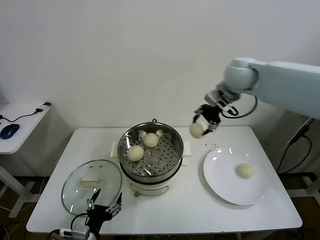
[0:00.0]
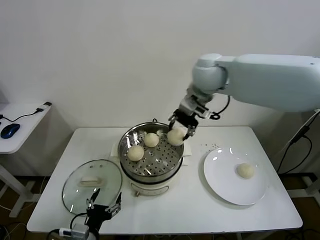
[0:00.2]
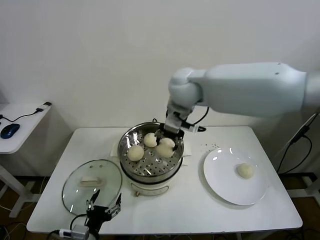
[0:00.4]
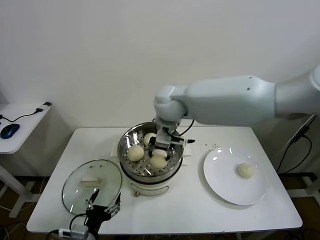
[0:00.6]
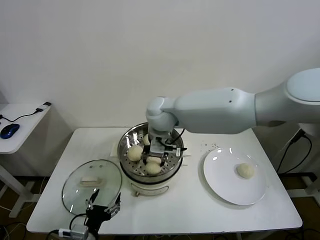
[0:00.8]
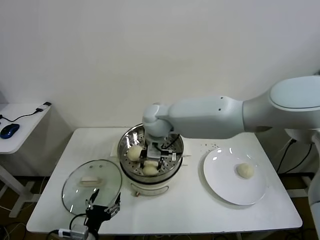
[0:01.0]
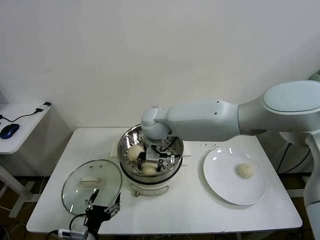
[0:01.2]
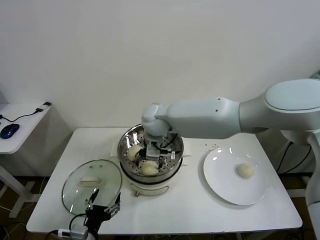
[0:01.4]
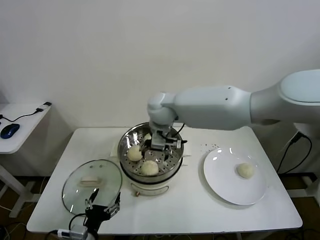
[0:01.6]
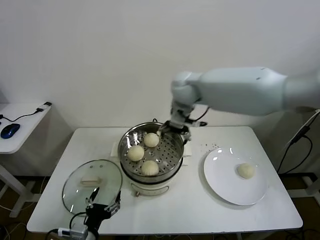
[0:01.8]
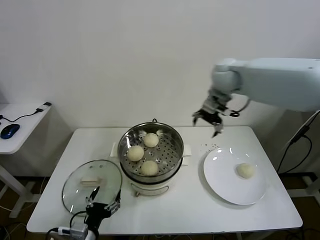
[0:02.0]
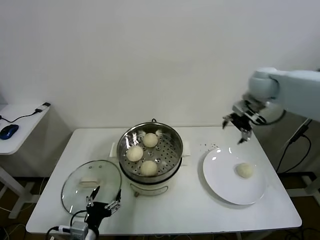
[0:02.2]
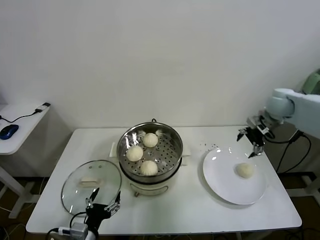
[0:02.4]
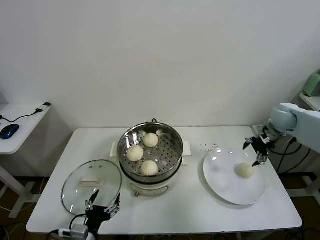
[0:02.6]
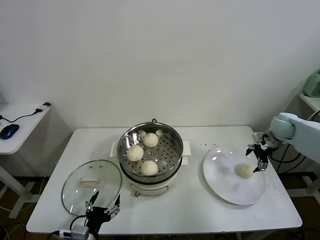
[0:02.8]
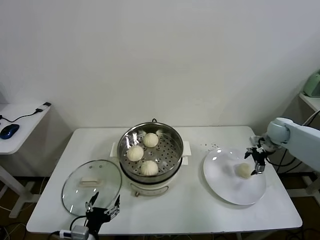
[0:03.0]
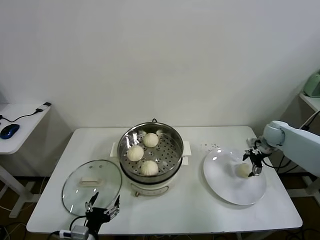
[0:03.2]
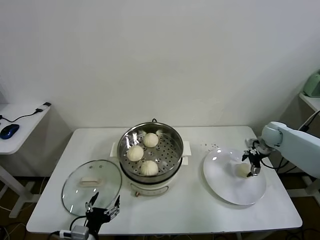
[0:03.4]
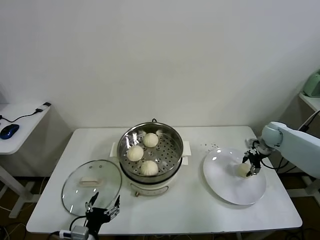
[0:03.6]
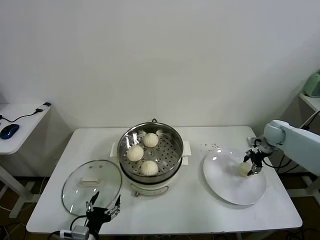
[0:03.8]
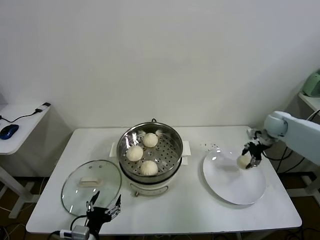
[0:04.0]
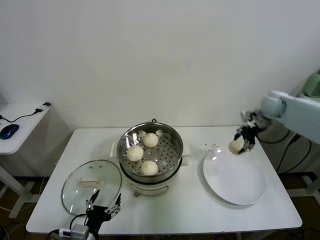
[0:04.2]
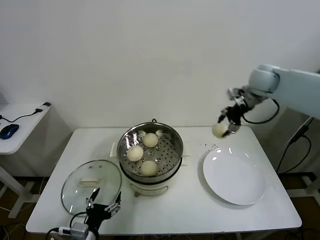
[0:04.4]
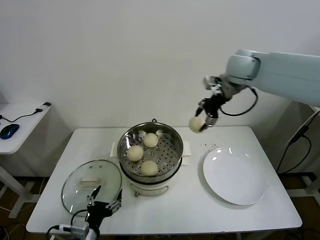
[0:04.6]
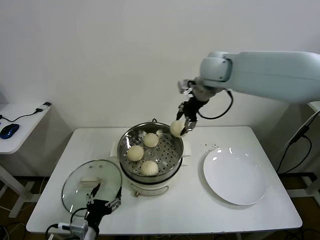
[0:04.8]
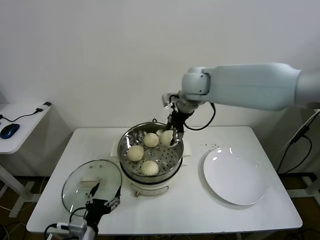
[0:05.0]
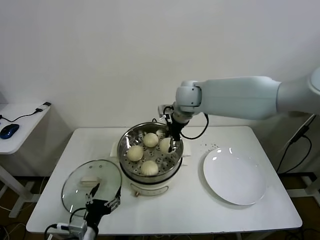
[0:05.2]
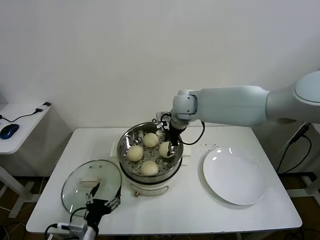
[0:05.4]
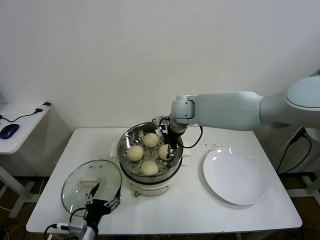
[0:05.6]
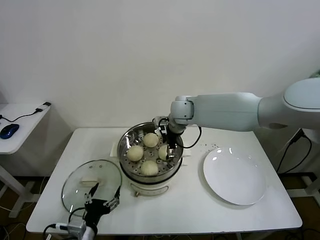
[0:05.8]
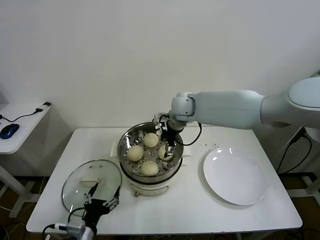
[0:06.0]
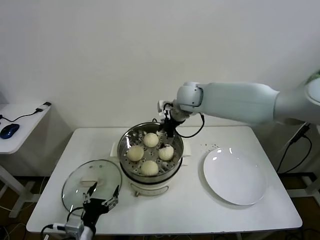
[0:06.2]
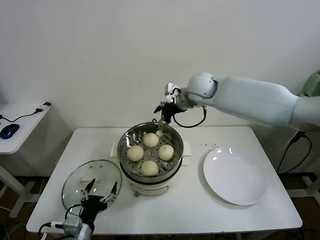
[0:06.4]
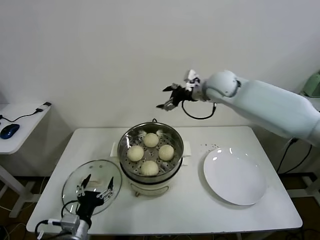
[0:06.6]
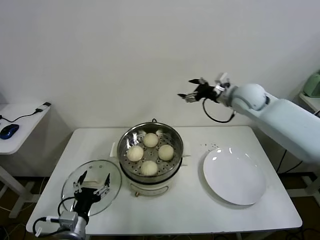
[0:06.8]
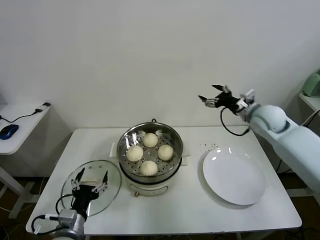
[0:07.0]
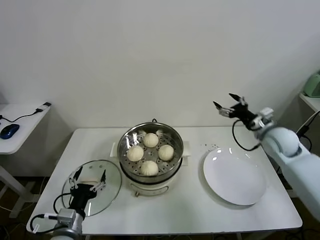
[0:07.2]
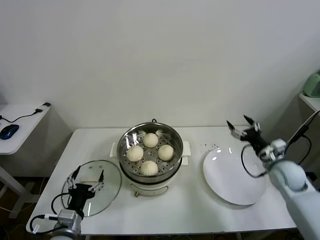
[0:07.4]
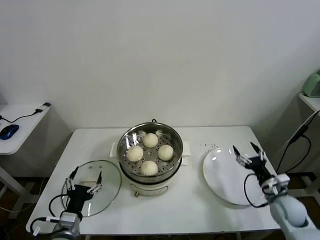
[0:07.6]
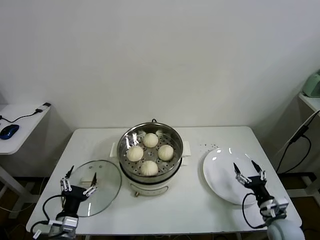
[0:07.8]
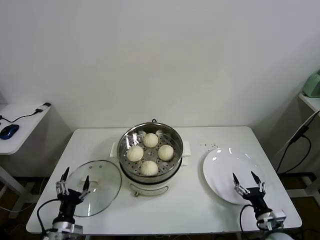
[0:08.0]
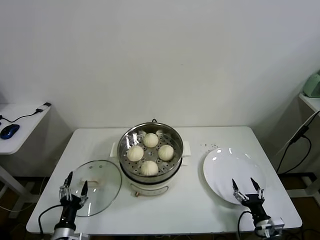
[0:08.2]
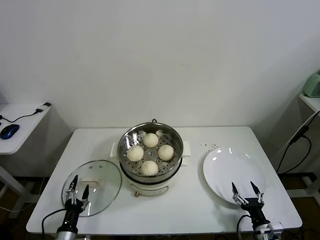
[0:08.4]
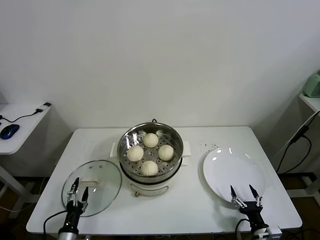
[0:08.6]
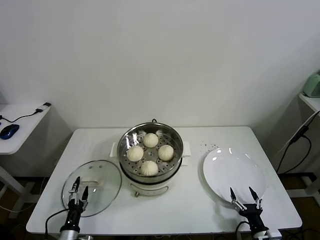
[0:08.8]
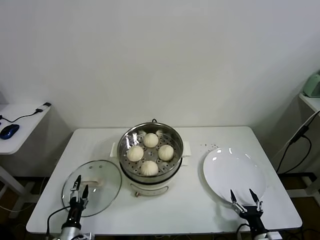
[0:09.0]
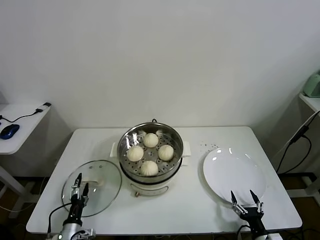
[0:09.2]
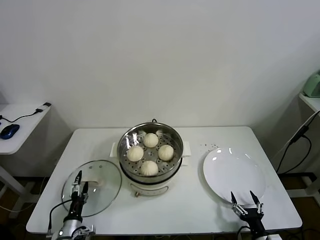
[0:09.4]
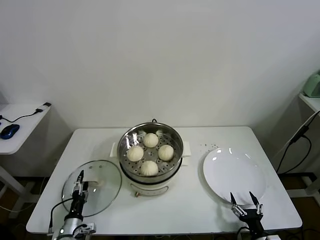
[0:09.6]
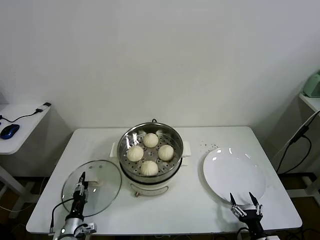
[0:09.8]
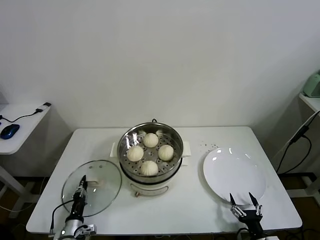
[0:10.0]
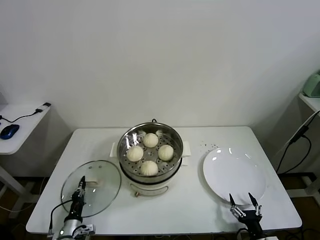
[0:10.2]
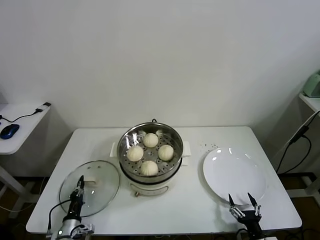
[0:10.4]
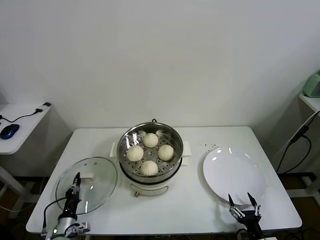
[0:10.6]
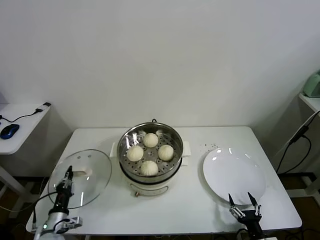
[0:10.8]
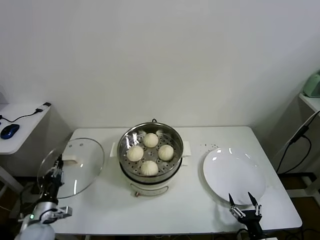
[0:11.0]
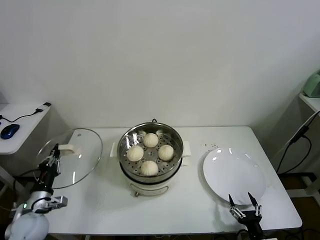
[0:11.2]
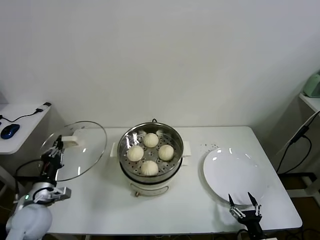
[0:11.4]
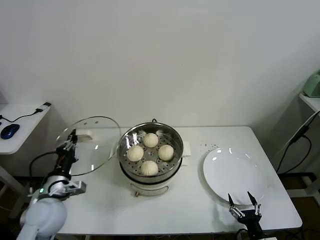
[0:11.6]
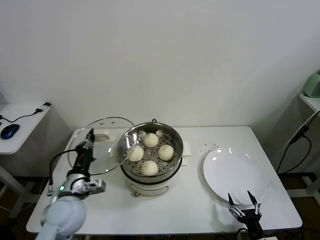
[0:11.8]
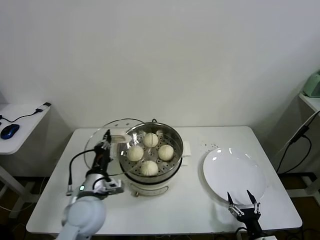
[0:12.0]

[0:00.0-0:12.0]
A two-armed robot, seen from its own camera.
Task of the whole recording: take steamed baozi put them in steamer.
Step, 0:00.0 to 0:01.4: Place the baozi on the steamer with right gripper.
Step, 0:01.6 to 0:03.6: Grasp the baozi in the plate with right gripper.
Step, 0:03.8 to 0:05.8: Place the baozi on the steamer with right gripper.
Step, 0:06.0 to 0:10.2: Grasp the pot lid with left gripper.
0:00.0 to 0:01.6: The right gripper shifts roughly 25 cm to the left and downward, and opens its fingers.
0:01.6 to 0:03.0: The right gripper heads to the right, covering about 50 cm.
0:03.0 to 0:04.4: The right gripper is displaced upward and to the left by some 25 cm, and closes its fingers.
0:04.4 to 0:06.0: The right gripper is displaced to the left by about 25 cm, and opens its fingers.
0:06.0 to 0:07.6: The right gripper moves to the right, downward and backward, roughly 50 cm.
0:07.6 to 0:09.0: The left gripper travels downward by some 15 cm, while the right gripper travels backward and downward by roughly 20 cm.
0:09.0 to 0:10.4: The left gripper closes.
0:10.4 to 0:12.0: The left gripper shifts approximately 30 cm upward and to the right.

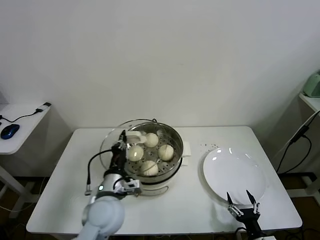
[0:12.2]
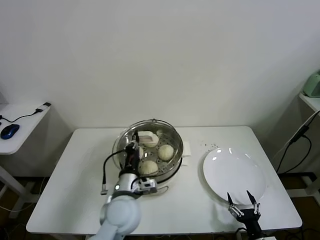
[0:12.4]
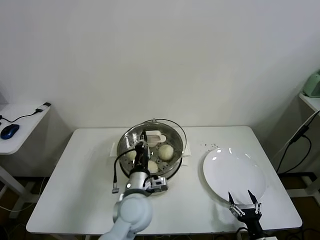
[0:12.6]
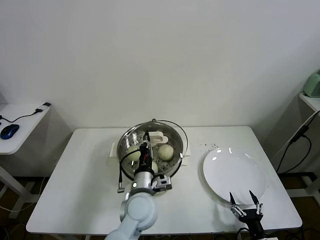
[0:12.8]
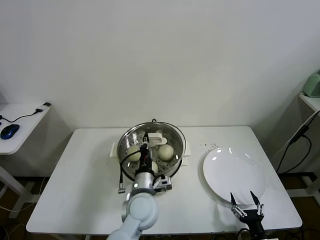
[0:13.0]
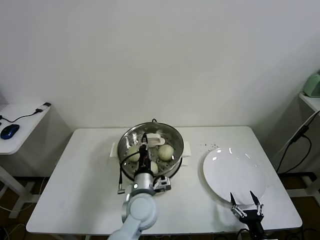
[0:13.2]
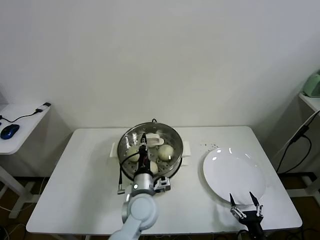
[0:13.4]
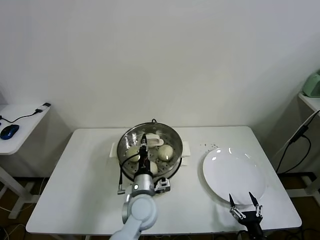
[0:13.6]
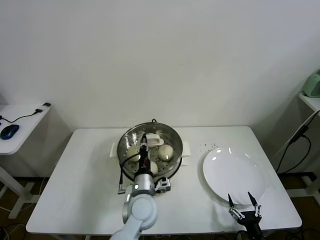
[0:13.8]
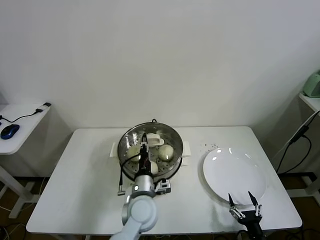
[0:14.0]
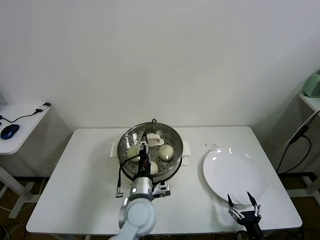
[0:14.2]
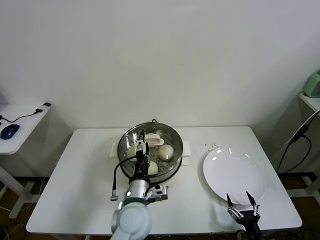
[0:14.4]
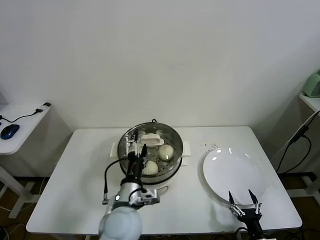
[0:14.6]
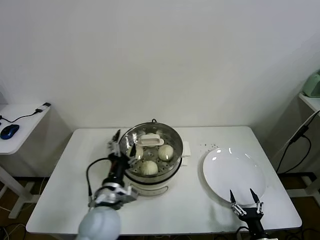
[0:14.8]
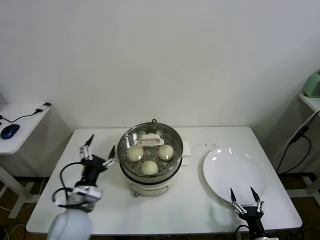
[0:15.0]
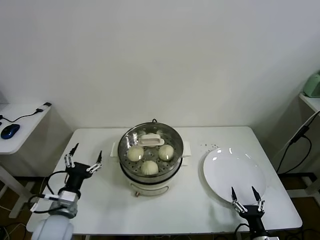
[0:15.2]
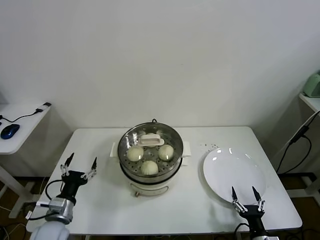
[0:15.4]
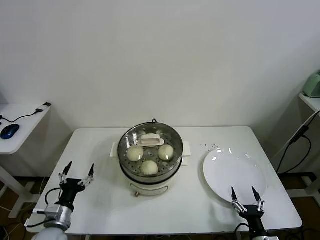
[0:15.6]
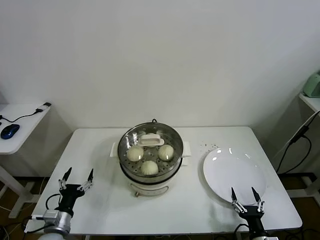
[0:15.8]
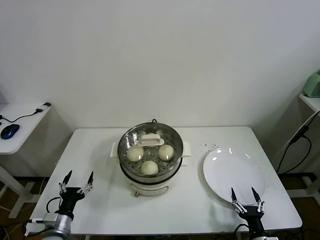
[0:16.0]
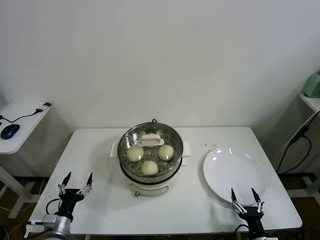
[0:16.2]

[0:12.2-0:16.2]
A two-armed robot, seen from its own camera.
Task of the whole recording: take steamed baozi put them in steamer.
Step, 0:12.2 to 0:14.2: Place the pot lid on the steamer with left gripper.
0:12.2 to 0:13.6: The left gripper goes some 10 cm to the right and downward.
0:13.6 to 0:14.8: The left gripper heads to the left, backward and upward, covering approximately 10 cm, and opens.
0:14.8 to 0:16.2: The left gripper travels to the left and downward by approximately 25 cm.

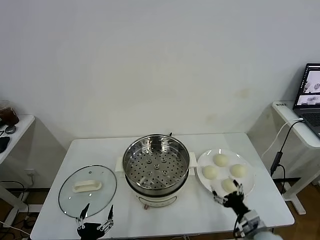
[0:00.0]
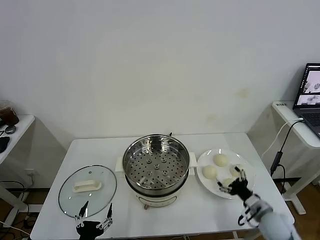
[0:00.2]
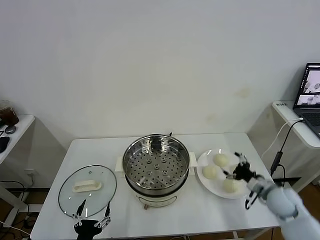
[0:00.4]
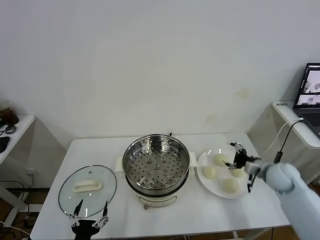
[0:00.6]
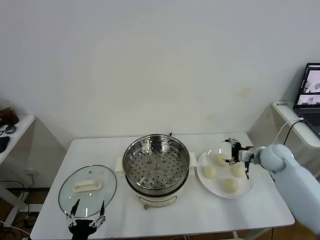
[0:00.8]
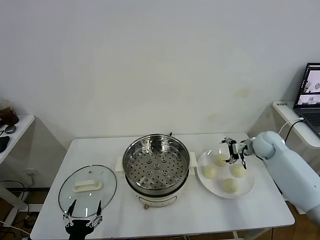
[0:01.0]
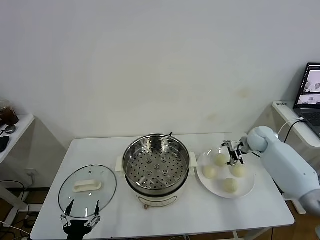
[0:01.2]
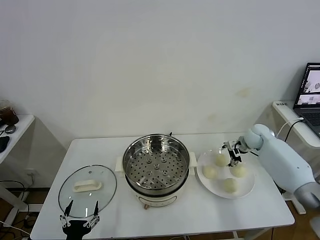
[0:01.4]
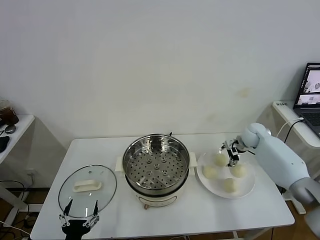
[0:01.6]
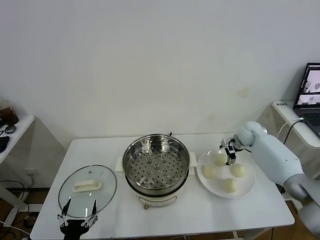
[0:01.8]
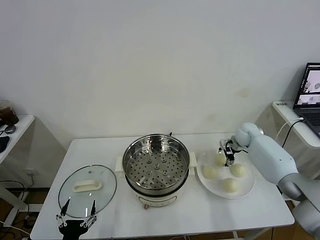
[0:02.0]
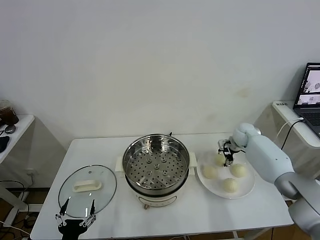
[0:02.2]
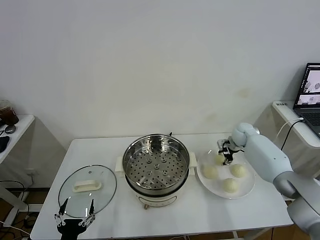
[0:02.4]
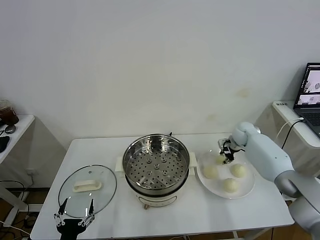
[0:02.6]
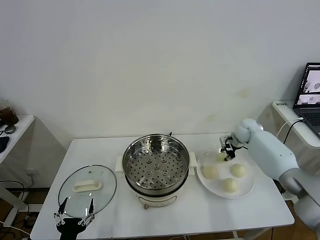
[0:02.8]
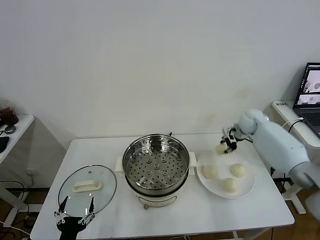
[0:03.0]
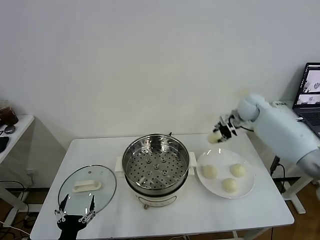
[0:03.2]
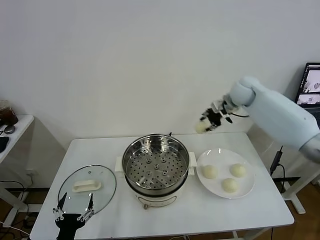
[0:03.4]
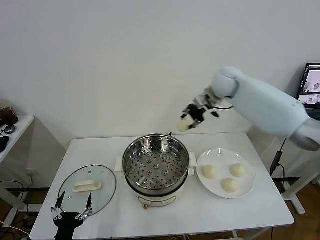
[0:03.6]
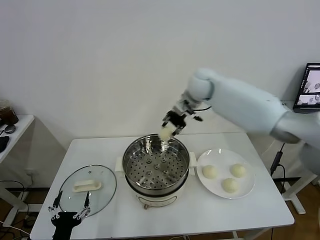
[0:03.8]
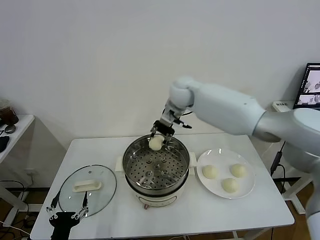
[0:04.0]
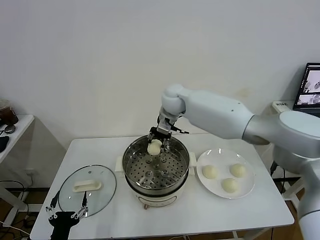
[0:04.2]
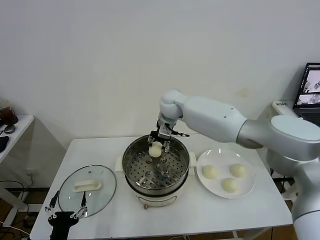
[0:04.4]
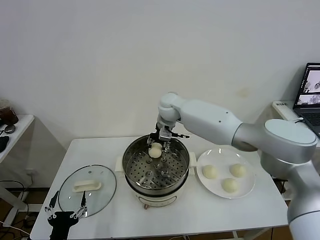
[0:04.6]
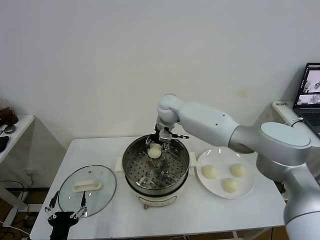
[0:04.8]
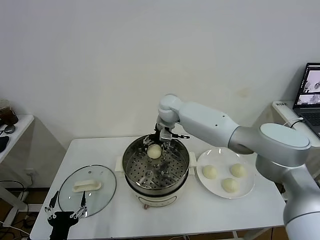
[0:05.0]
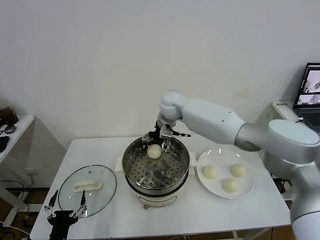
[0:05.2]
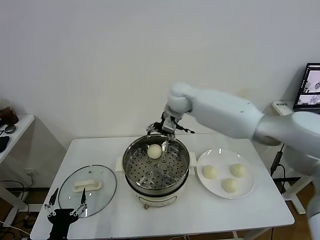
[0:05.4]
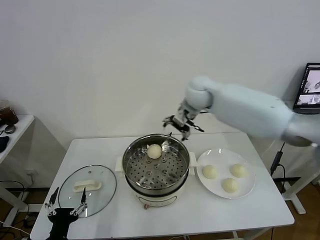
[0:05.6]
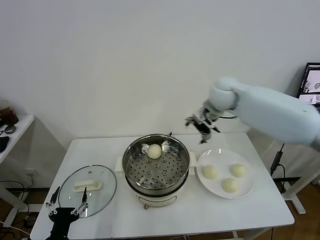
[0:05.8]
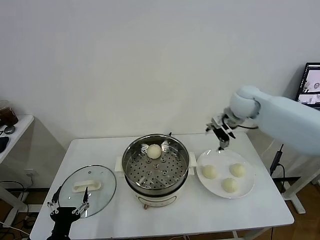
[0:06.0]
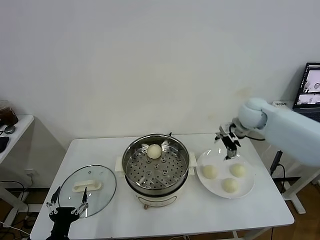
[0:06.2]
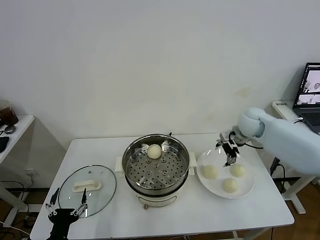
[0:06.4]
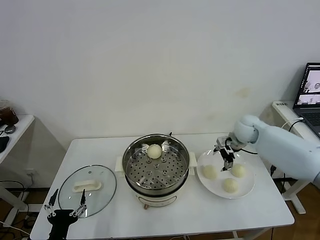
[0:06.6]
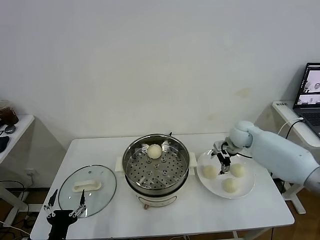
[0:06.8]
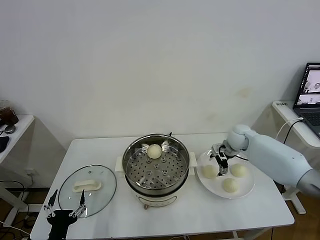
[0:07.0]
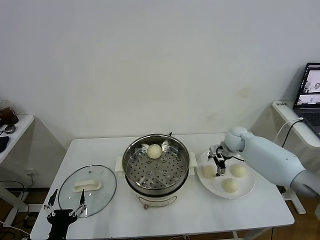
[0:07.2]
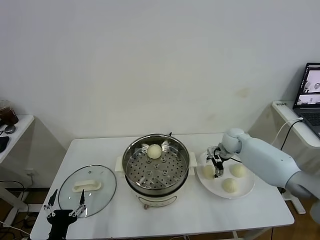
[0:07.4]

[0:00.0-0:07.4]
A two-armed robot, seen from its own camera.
Task of the whole recording: take steamed baozi put them in steamer.
Step, 0:00.0 to 0:02.4: Grasp the baozi in the plate with right gripper.
Step, 0:02.8 to 0:05.0: Place the baozi on the steamer with right gripper.
0:01.4 to 0:03.0: The right gripper travels upward by roughly 10 cm, and closes.
0:03.0 to 0:04.4: The right gripper heads to the left, covering approximately 30 cm.
0:04.4 to 0:06.0: The right gripper travels to the right by roughly 25 cm, and opens.
0:06.0 to 0:07.4: The right gripper goes roughly 20 cm downward.
